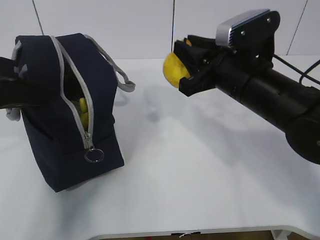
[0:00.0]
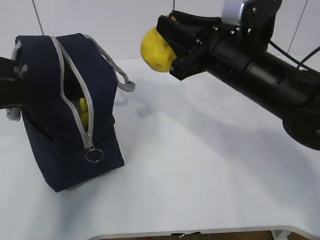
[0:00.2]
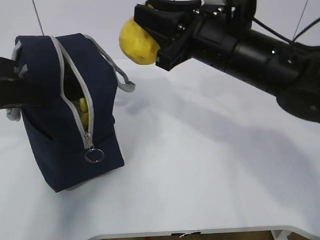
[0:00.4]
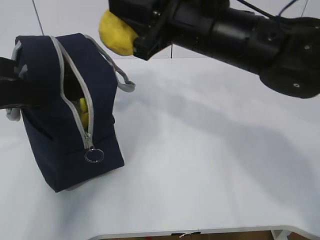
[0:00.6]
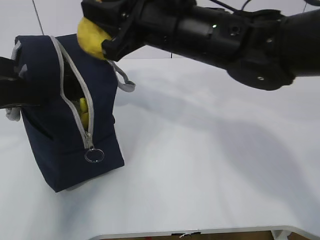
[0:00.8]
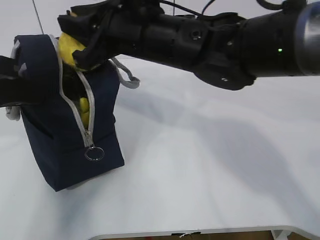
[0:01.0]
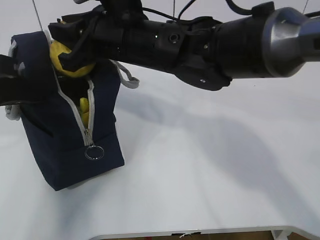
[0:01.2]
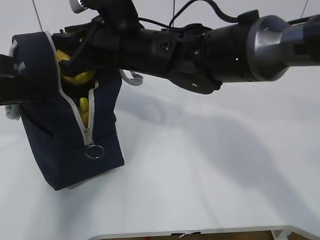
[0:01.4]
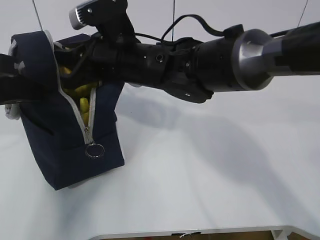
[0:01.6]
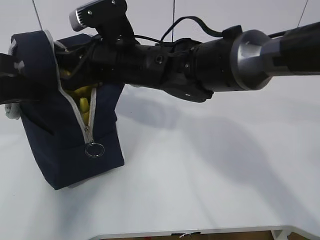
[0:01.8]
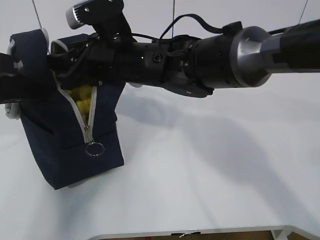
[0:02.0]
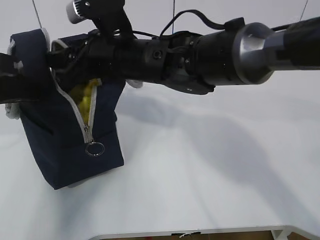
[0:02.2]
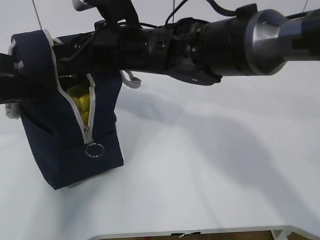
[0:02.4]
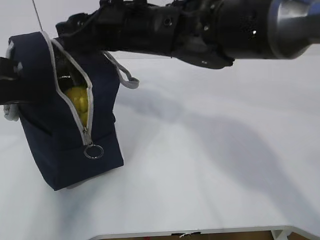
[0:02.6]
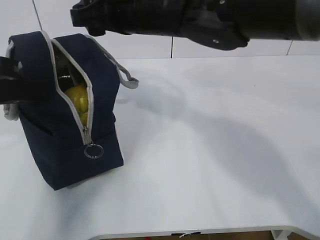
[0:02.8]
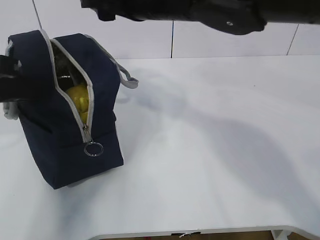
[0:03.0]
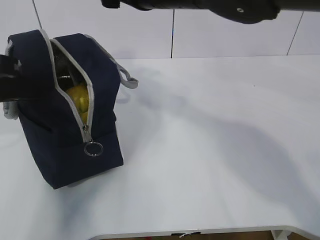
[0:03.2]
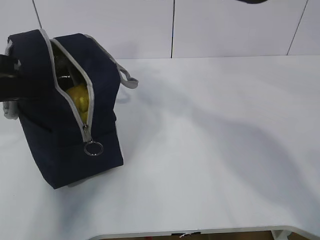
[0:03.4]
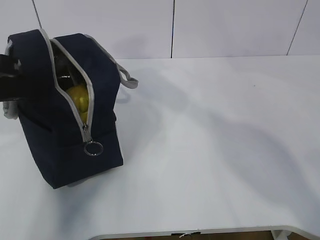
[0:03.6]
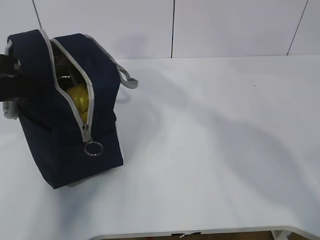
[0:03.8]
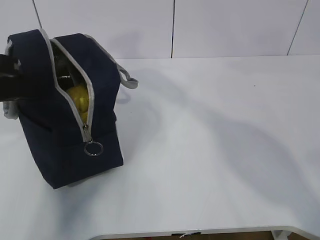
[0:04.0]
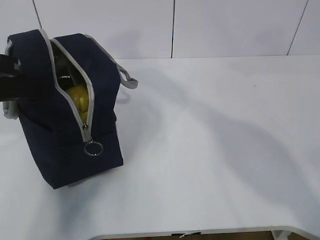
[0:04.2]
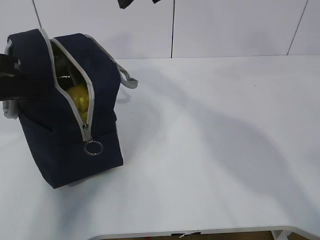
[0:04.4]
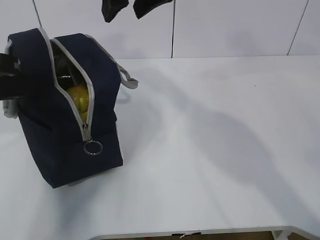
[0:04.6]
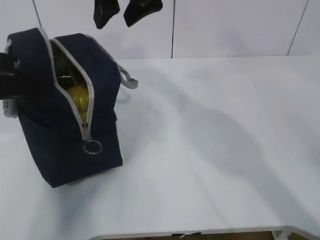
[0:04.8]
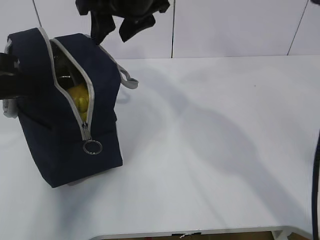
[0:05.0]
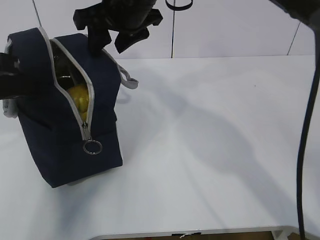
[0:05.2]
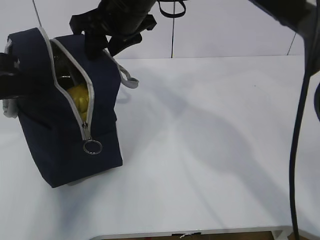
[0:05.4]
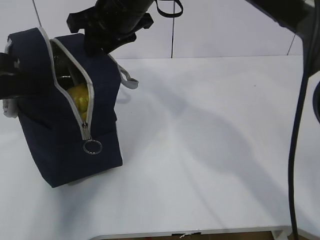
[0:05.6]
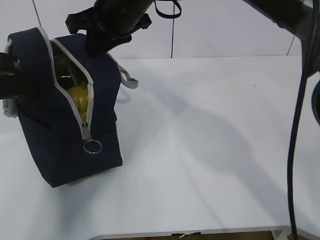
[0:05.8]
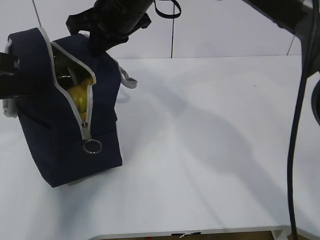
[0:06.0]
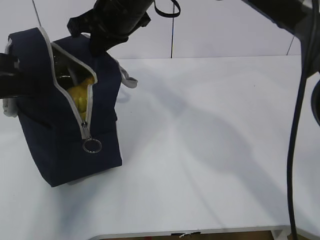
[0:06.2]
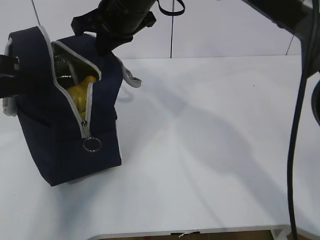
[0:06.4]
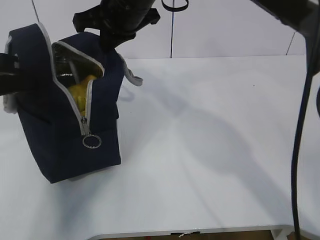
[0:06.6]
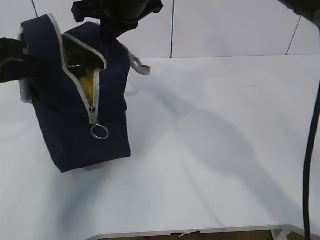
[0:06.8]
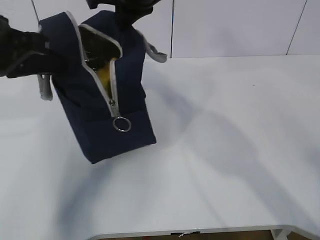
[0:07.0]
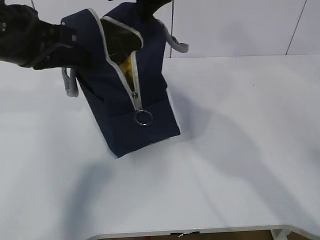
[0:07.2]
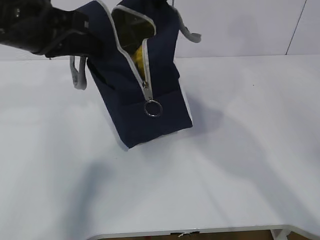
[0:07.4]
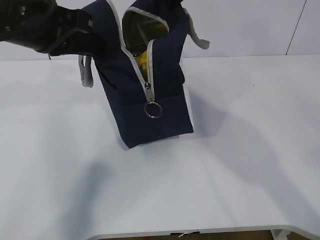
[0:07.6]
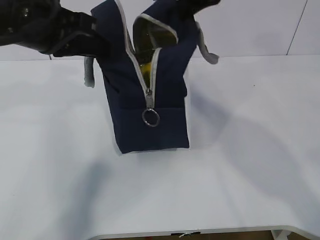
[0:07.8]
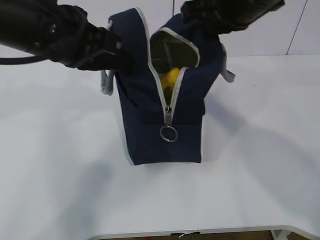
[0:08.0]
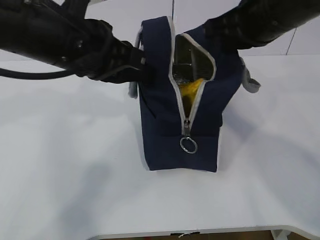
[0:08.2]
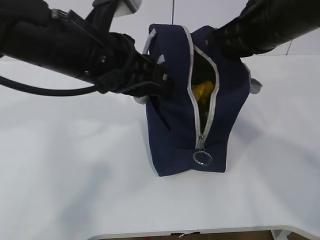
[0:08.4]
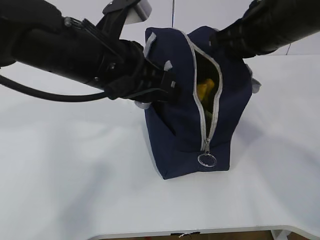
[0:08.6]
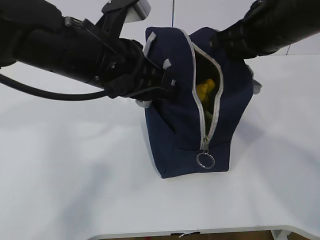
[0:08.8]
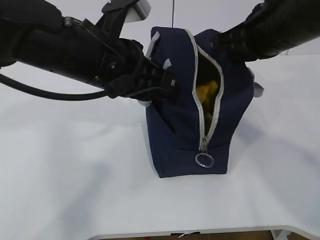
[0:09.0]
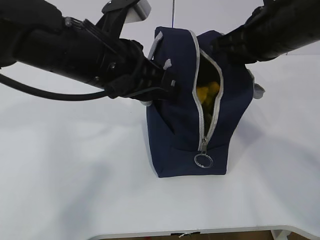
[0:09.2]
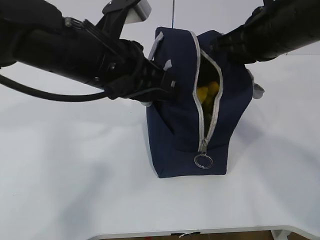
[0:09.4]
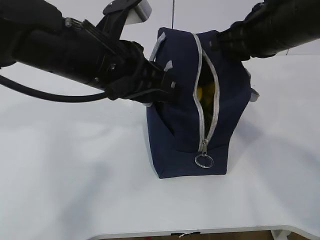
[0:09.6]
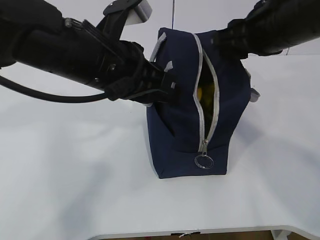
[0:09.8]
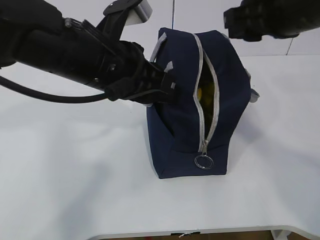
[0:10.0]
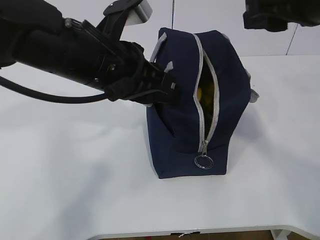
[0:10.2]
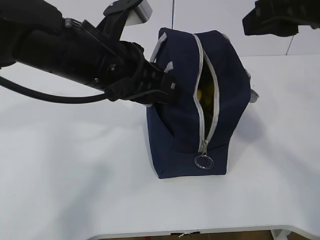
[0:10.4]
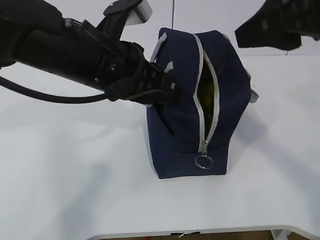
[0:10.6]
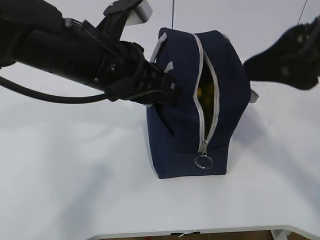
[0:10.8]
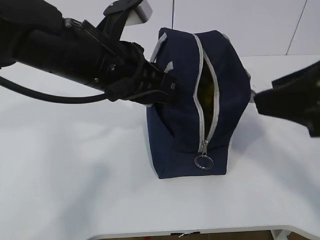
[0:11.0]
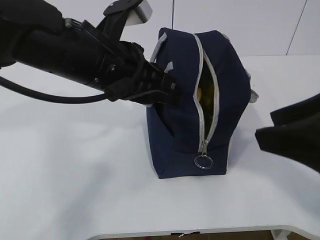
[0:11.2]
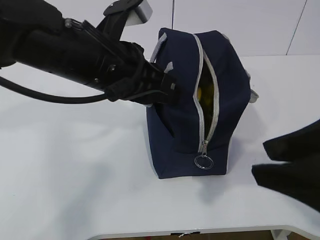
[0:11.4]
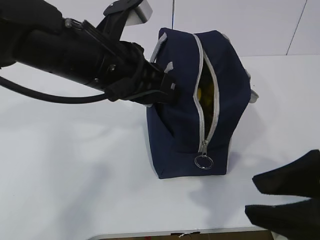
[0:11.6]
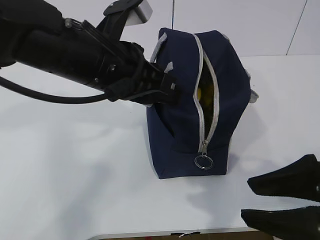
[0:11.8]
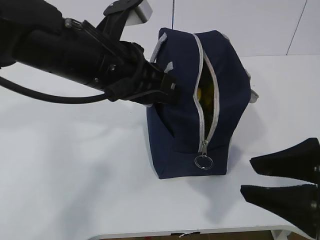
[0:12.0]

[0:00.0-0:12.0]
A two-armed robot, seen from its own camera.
Step, 0:00.0 to 0:02.2: Place the pear into the package with the right gripper.
0:00.0 to 0:01.6: The right gripper shifts roughly 15 cm to the left.
0:01.6 to 0:03.0: The right gripper goes approximately 10 cm upward, and opens.
0:03.0 to 0:04.4: The right gripper is displaced upward by about 5 cm.
0:04.4 to 0:06.0: The right gripper moves downward, forward and to the left, approximately 15 cm, and closes its fingers.
0:06.0 to 0:07.6: The left gripper shifts approximately 10 cm to the right and forward. The right gripper moves to the right and upward, roughly 10 cm.
0:07.6 to 0:09.0: The left gripper goes some 10 cm to the right. Meanwhile the right gripper heads to the right, downward and backward, covering some 15 cm.
0:09.0 to 0:10.4: The right gripper is displaced backward and upward by some 10 cm, and opens its fingers.
0:10.4 to 0:12.0: The right gripper travels downward and backward by some 15 cm.

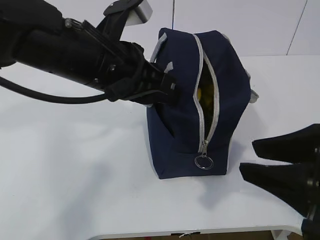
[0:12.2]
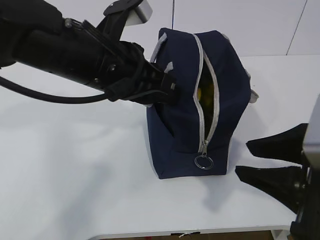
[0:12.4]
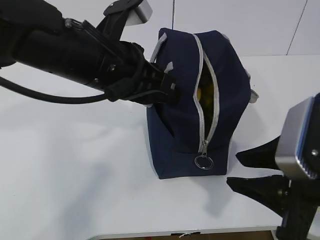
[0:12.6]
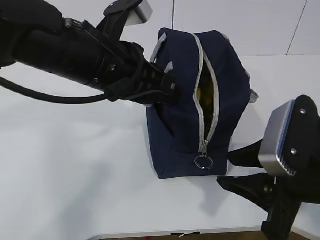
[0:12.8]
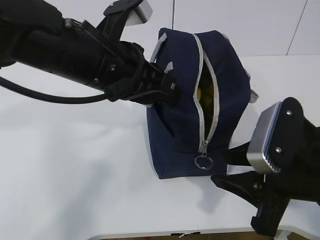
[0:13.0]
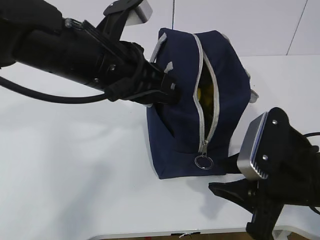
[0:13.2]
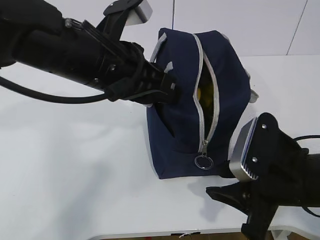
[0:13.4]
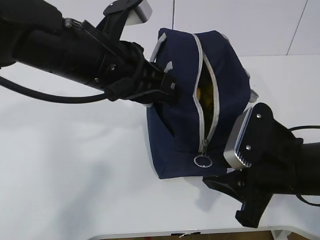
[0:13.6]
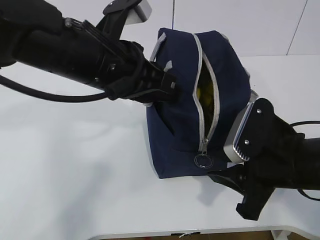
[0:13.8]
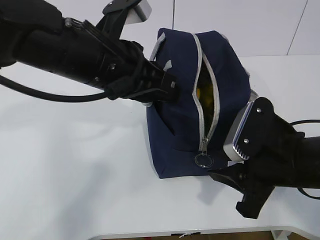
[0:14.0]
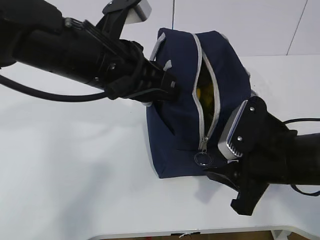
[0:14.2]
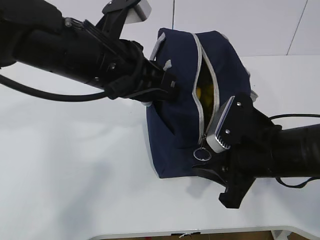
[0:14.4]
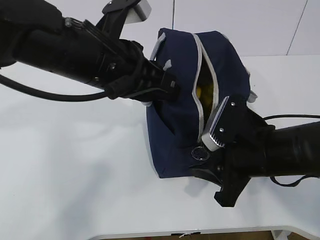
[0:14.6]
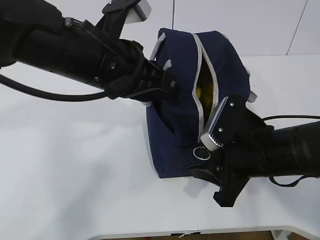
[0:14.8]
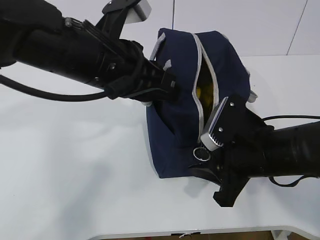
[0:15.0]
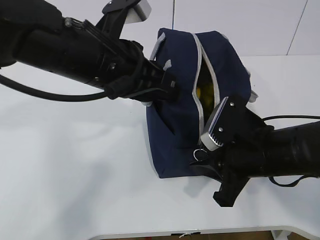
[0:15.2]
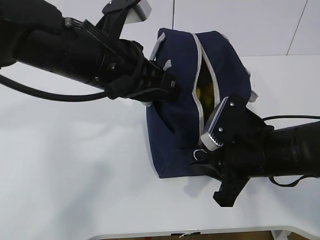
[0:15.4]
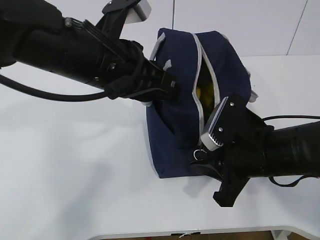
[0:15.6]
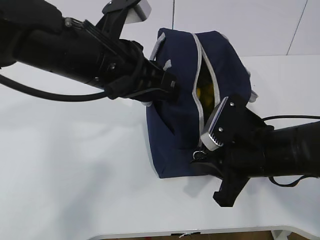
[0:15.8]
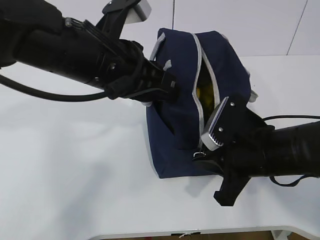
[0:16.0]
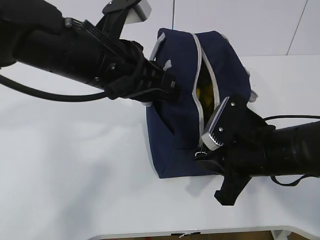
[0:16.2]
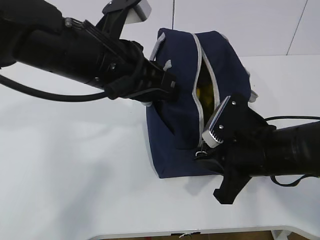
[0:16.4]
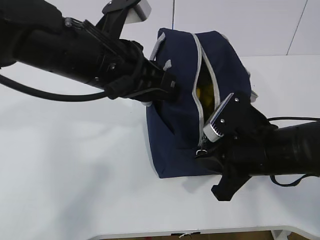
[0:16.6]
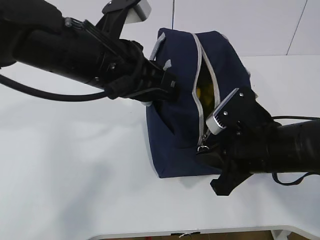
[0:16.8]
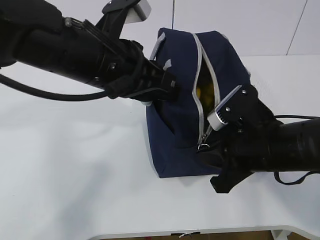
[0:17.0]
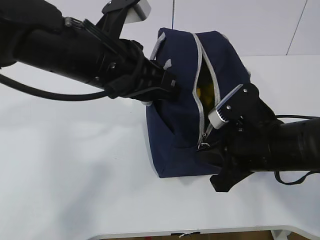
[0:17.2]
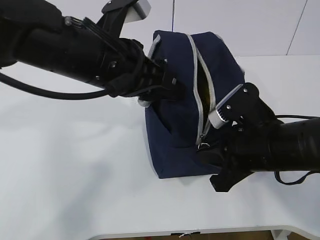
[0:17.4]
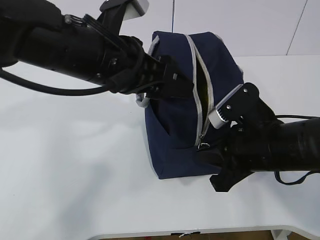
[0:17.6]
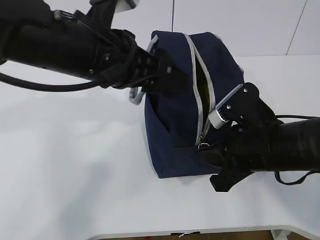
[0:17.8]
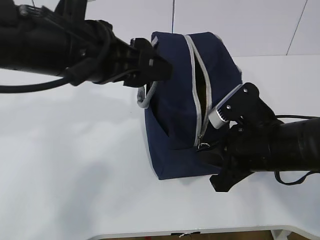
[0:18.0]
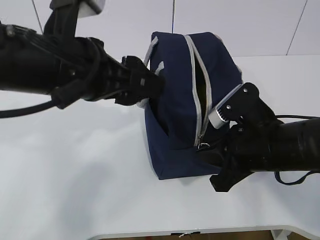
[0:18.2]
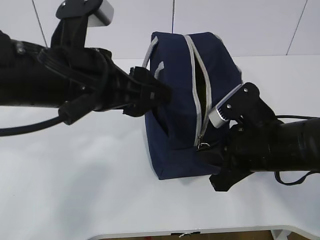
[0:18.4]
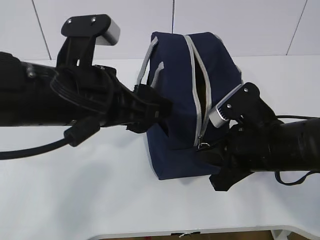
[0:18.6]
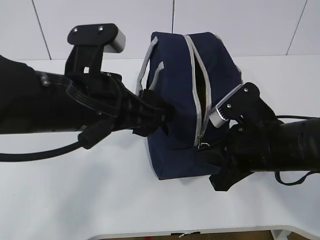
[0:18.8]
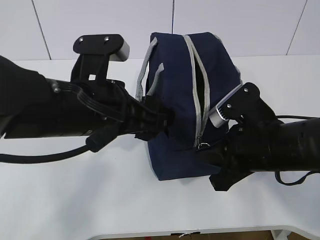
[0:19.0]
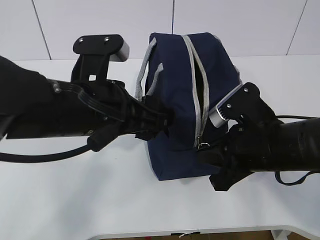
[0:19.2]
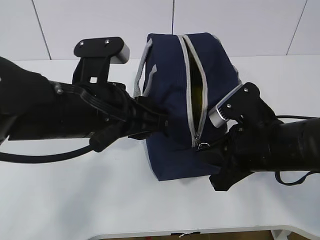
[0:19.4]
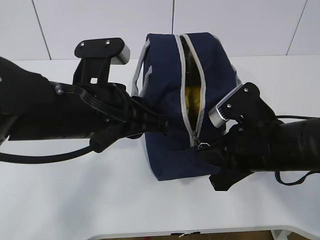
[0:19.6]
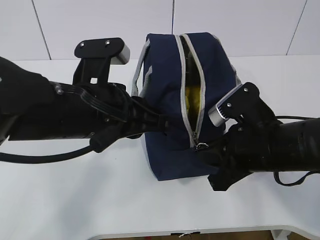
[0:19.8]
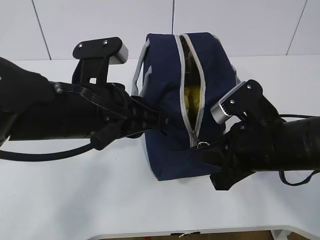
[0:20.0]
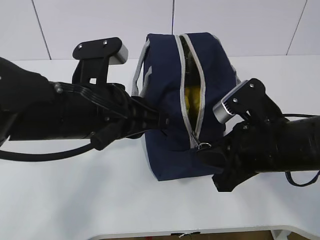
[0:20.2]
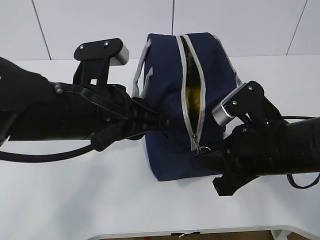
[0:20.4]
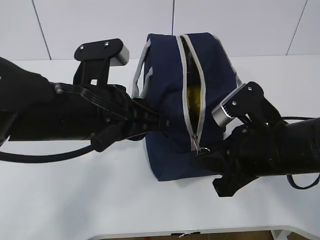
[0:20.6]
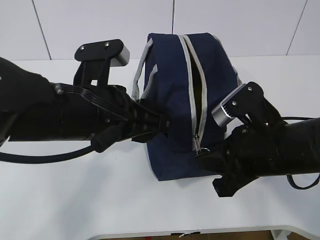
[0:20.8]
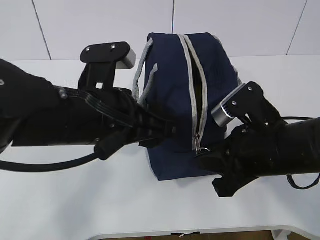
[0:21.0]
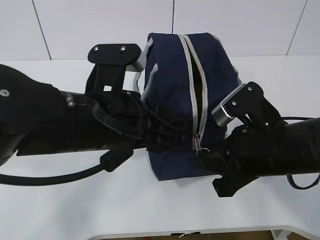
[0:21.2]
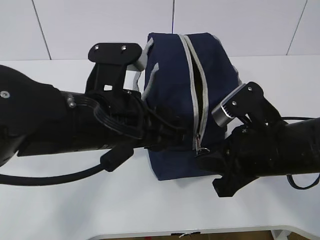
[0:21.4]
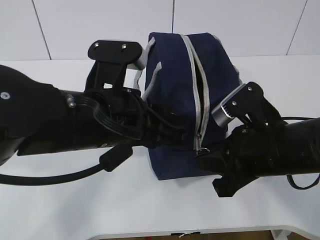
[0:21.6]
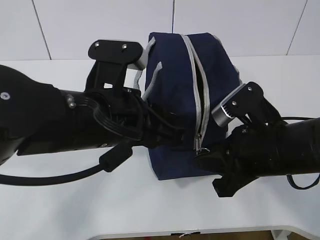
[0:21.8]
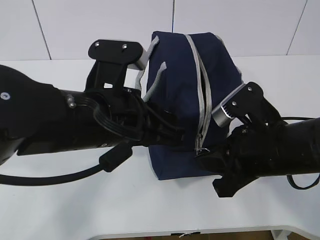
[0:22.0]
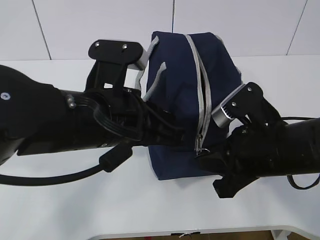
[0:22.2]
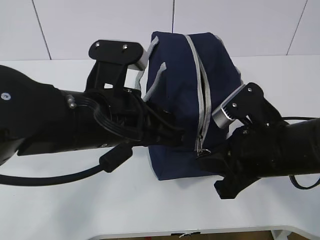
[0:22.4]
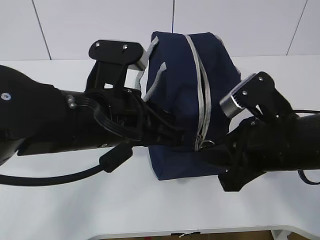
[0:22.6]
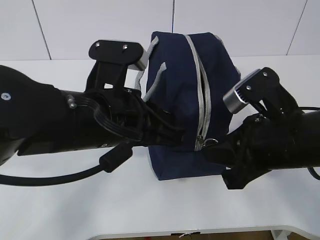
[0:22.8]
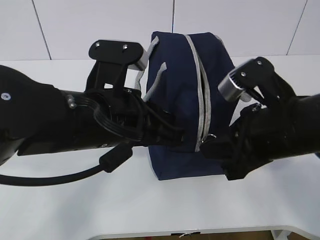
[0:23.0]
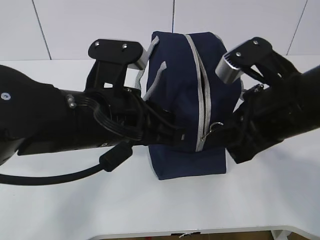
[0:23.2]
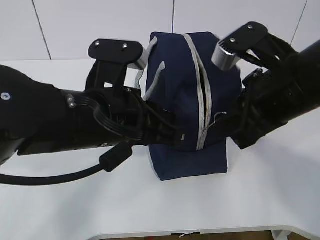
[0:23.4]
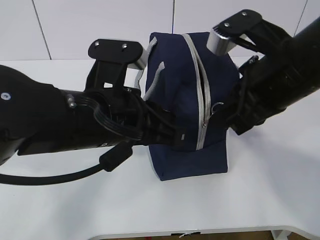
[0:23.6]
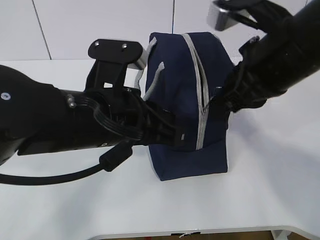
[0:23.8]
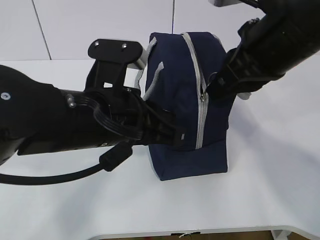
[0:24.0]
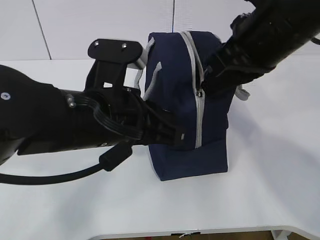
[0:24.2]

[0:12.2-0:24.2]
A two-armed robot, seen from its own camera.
0:12.2 to 0:13.8: The right gripper is displaced forward and downward by about 10 cm.
0:13.8 to 0:15.2: The grippers stay close to where they were, moving slightly.
0:15.2 to 0:16.6: The right gripper closes up.
0:16.6 to 0:18.2: The left gripper opens.
0:18.2 to 0:19.8: The left gripper moves downward, approximately 5 cm, and closes its fingers.
0:19.8 to 0:21.2: The left gripper opens up.
0:21.2 to 0:22.6: The left gripper closes up.
0:22.6 to 0:24.2: The right gripper moves upward and forward, roughly 15 cm.
